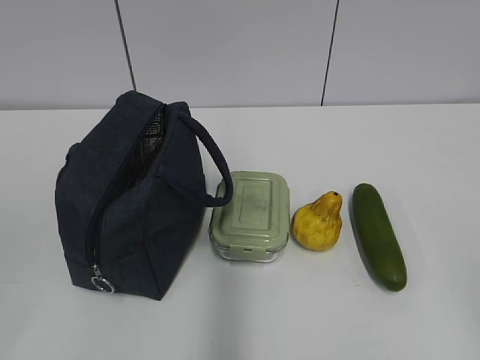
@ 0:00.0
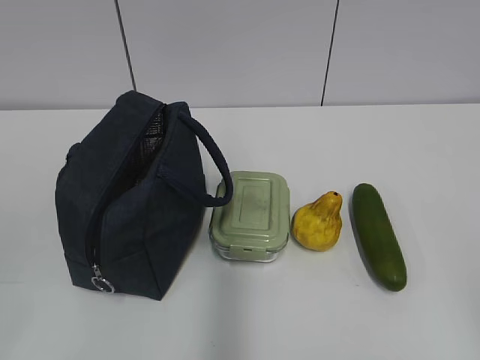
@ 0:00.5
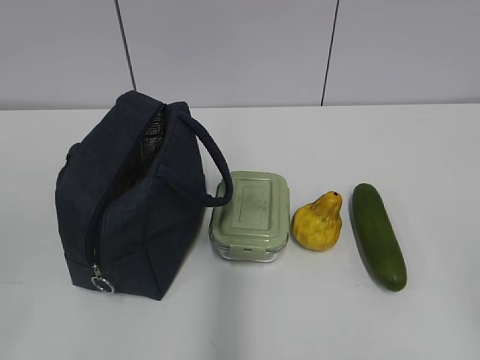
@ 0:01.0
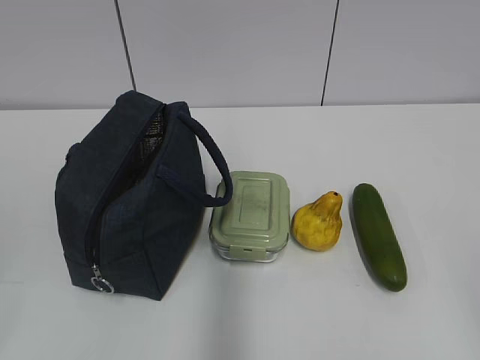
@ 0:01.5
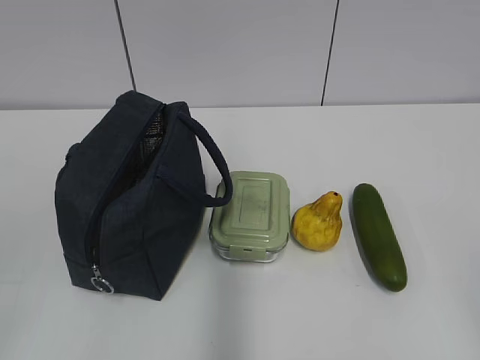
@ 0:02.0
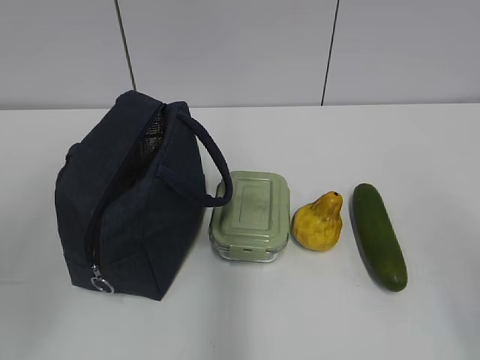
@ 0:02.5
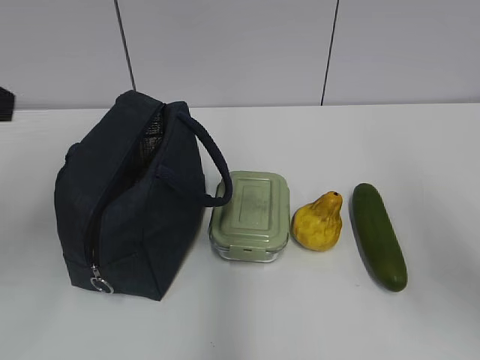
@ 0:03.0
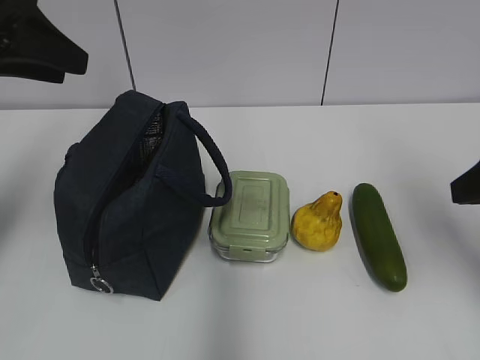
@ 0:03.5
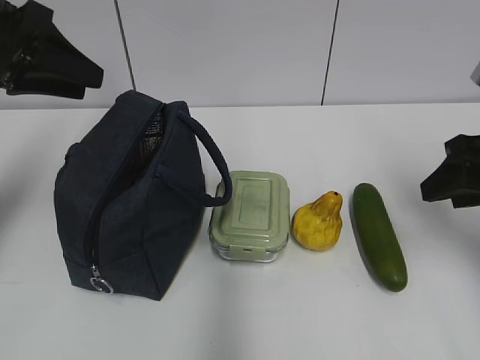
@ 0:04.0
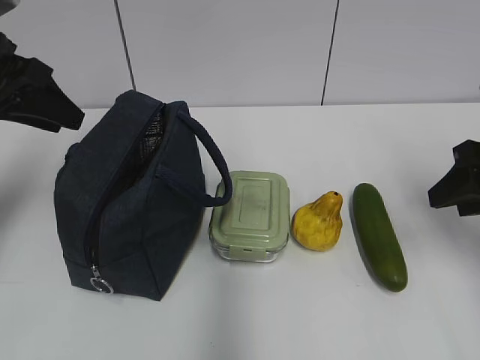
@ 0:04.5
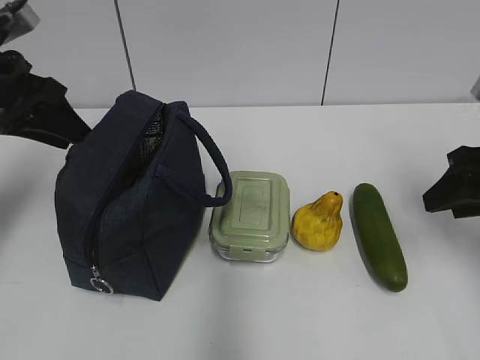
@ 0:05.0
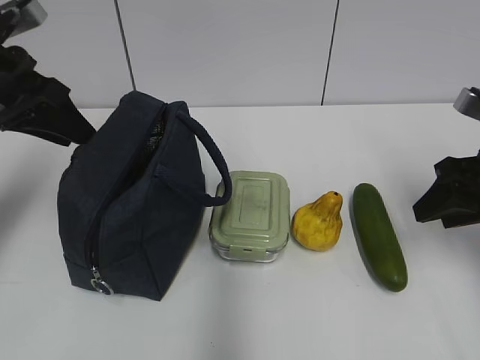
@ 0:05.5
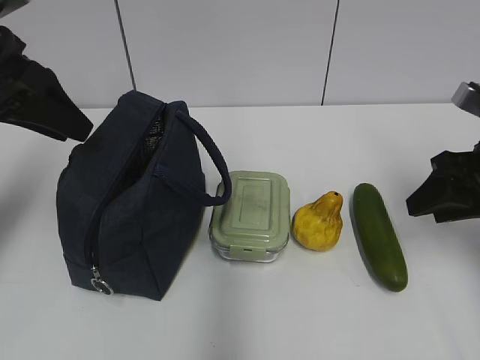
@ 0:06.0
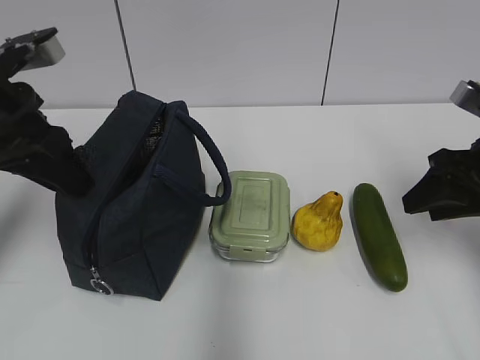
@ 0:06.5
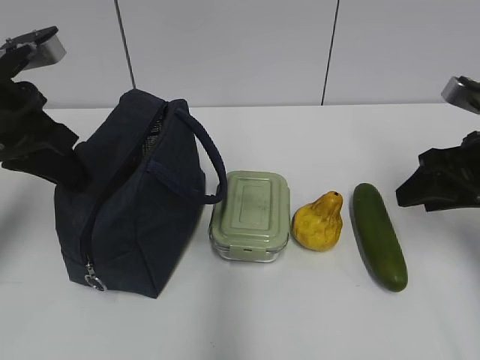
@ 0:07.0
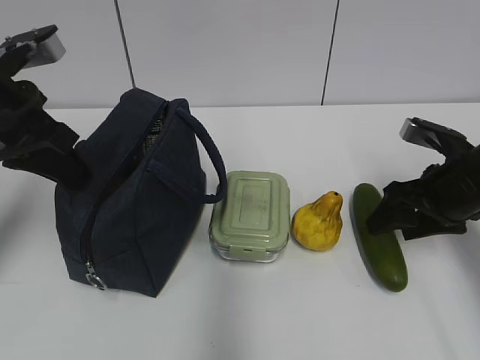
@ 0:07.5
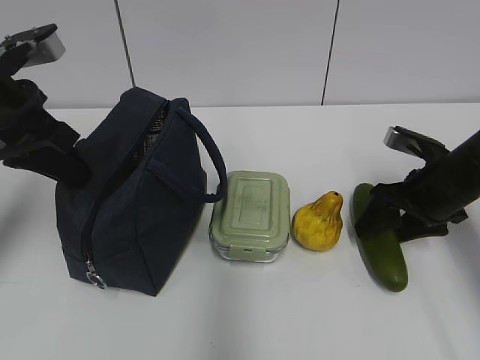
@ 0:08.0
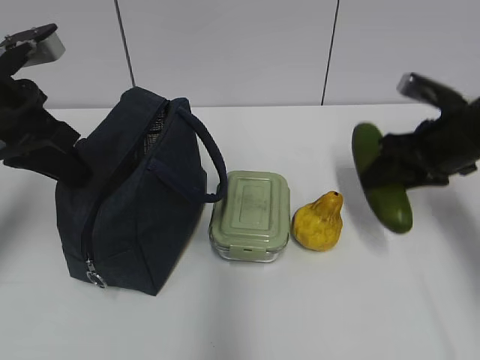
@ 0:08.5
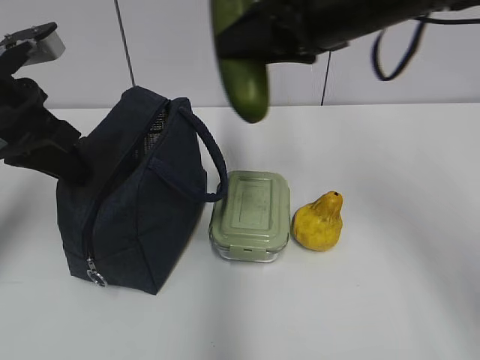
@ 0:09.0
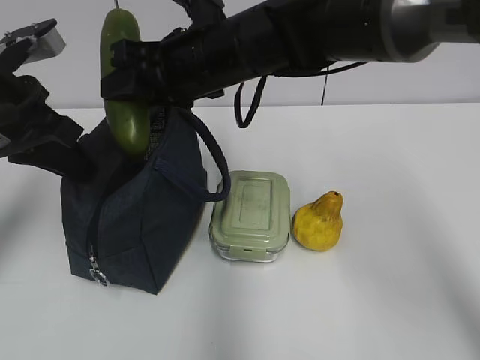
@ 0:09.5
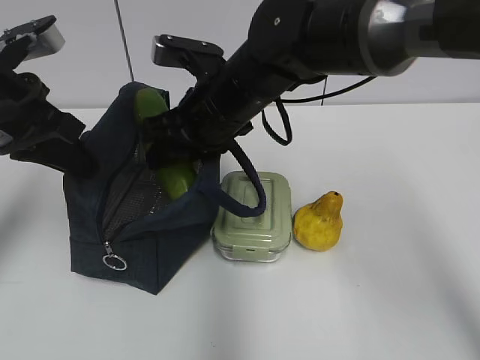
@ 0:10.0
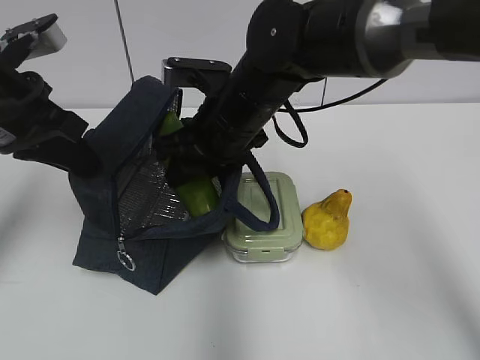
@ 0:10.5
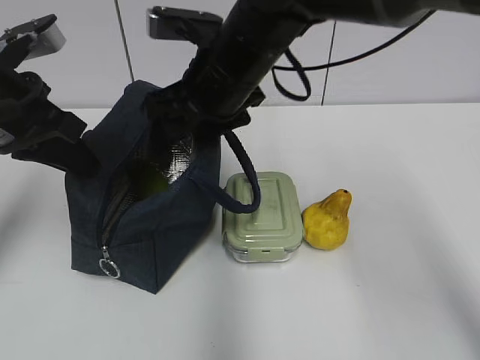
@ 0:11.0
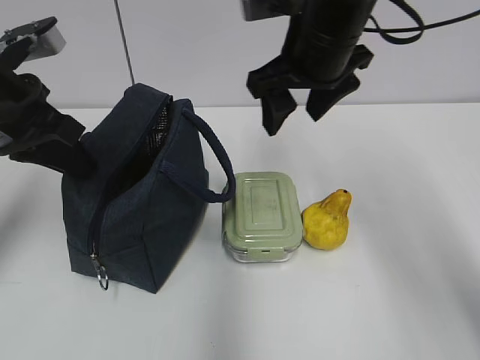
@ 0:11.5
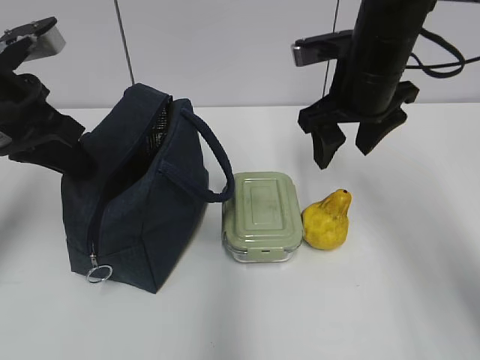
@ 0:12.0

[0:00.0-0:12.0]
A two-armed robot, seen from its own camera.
Step, 0:00.0 to 0:08.0: Grab the cucumber with your right hand.
Step, 0:10.0 to 0:10.5: Place it into the bag with your right hand.
0:02.0 to 0:04.0: The grippers both shift forward by approximately 30 cm.
0:04.0 to 0:06.0: There are only small adjustments of the grippers.
0:06.0 to 0:08.0: The right gripper heads downward and forward, covering roughly 10 cm, while the left gripper closes its fingers.
0:08.0 to 0:10.0: The right gripper is displaced to the left by some 25 cm, and closes.
0:10.0 to 0:12.0: The right gripper heads to the right, covering some 15 cm, and opens its fingers.

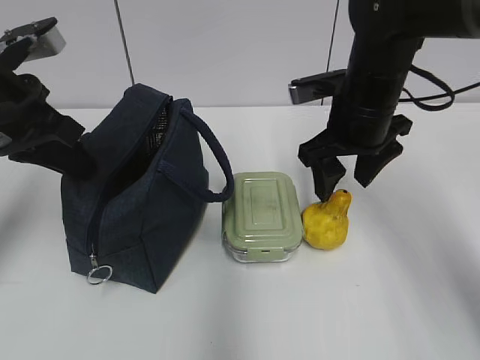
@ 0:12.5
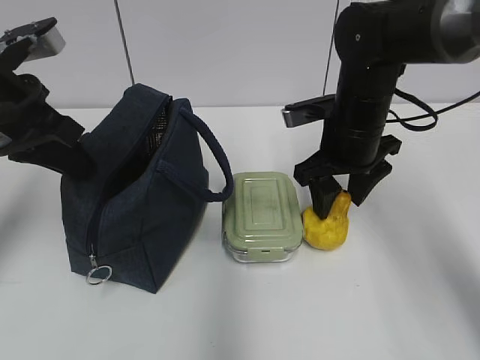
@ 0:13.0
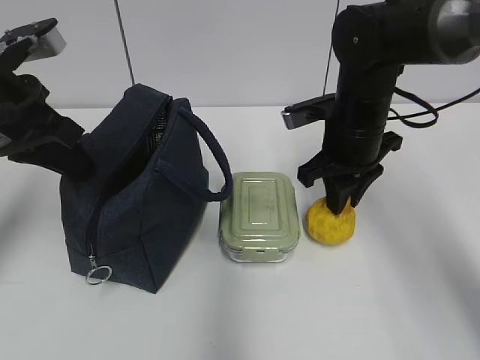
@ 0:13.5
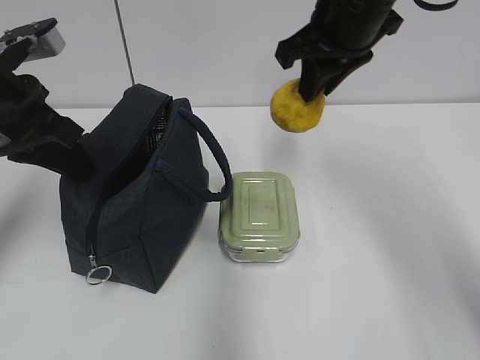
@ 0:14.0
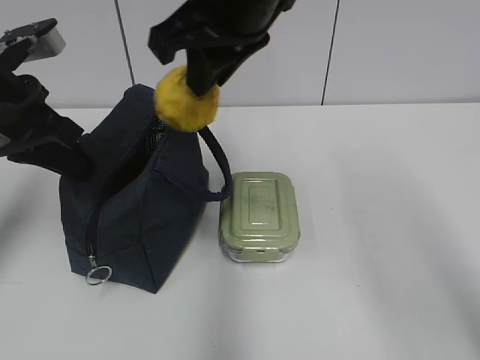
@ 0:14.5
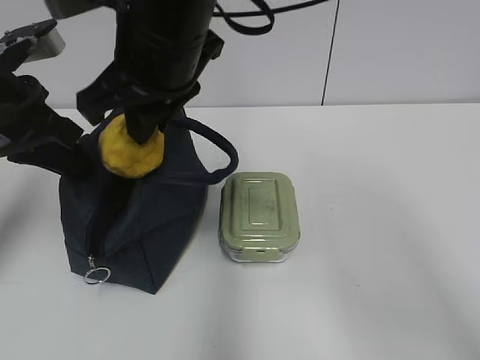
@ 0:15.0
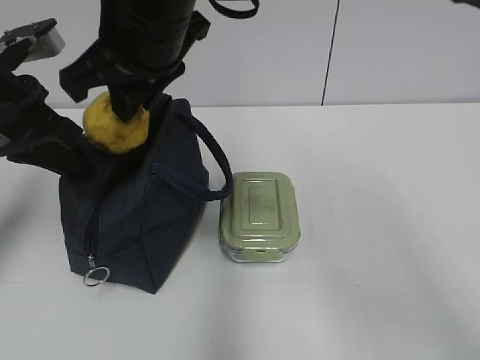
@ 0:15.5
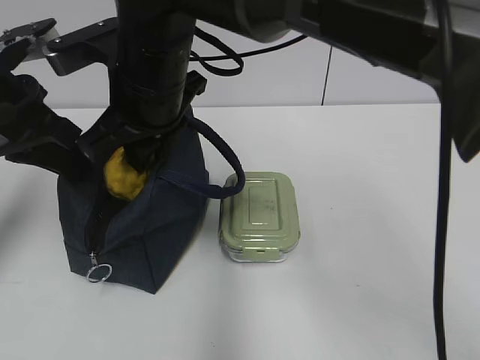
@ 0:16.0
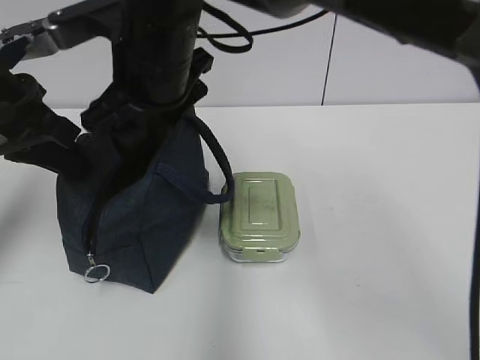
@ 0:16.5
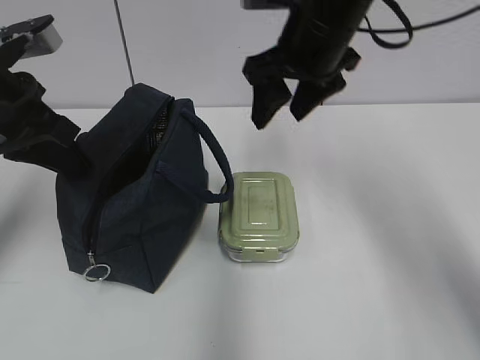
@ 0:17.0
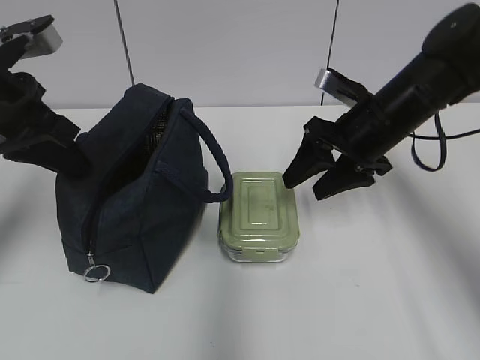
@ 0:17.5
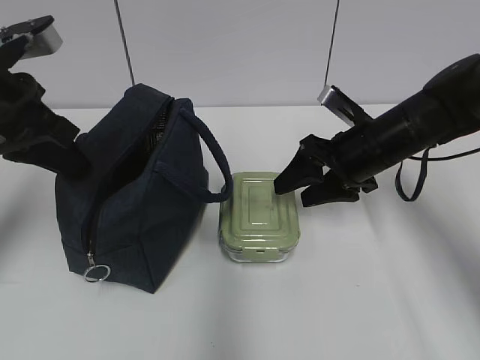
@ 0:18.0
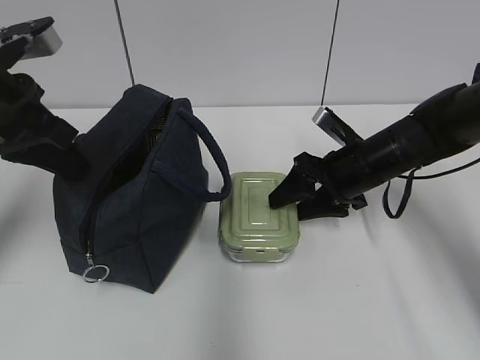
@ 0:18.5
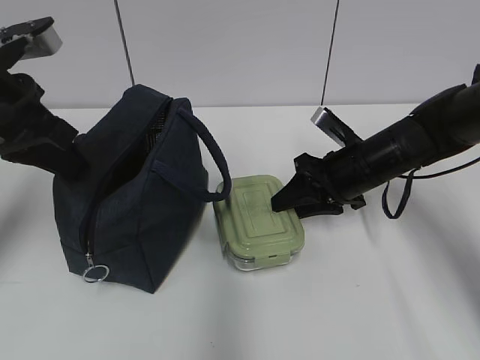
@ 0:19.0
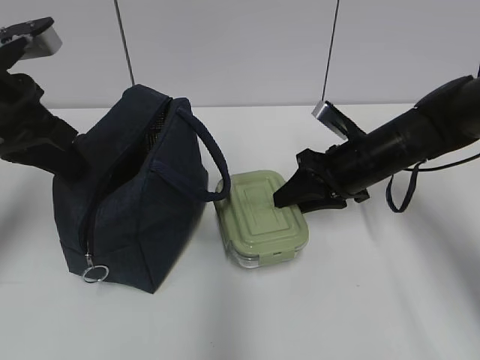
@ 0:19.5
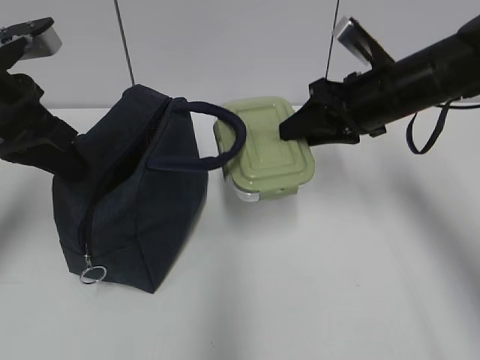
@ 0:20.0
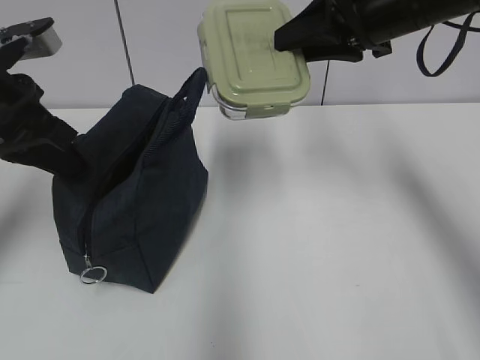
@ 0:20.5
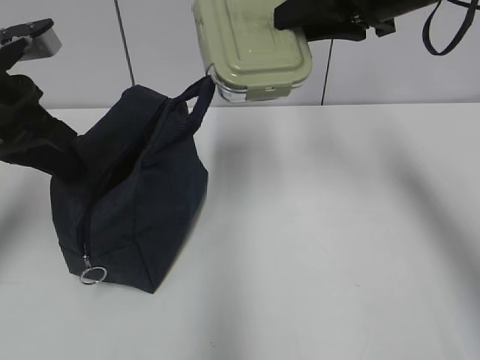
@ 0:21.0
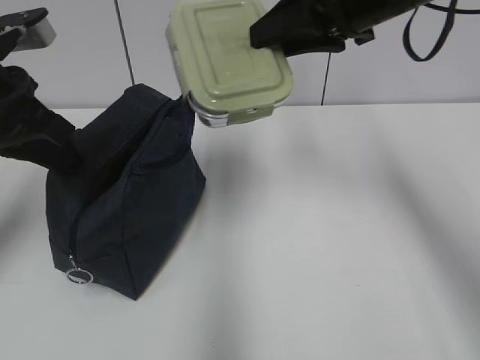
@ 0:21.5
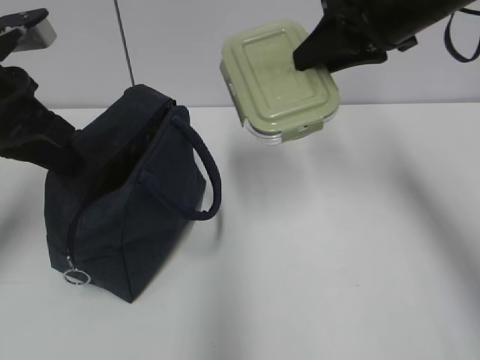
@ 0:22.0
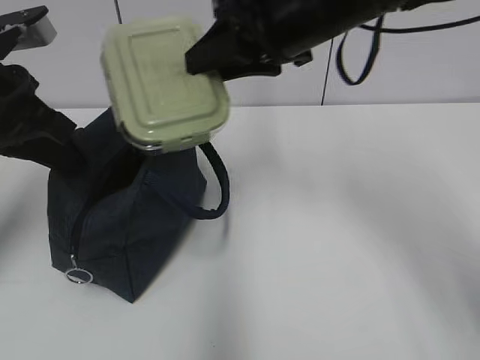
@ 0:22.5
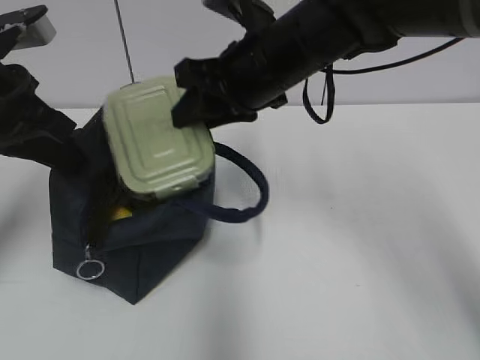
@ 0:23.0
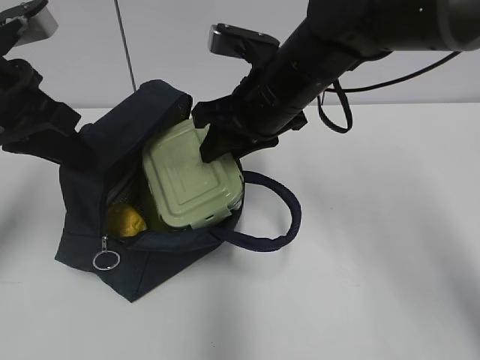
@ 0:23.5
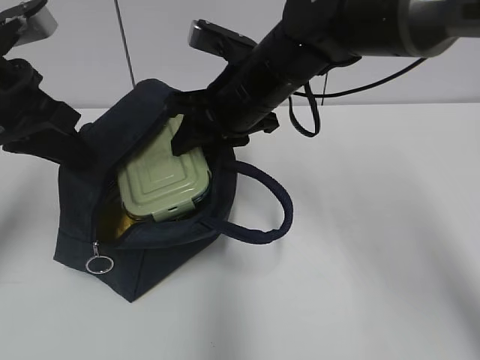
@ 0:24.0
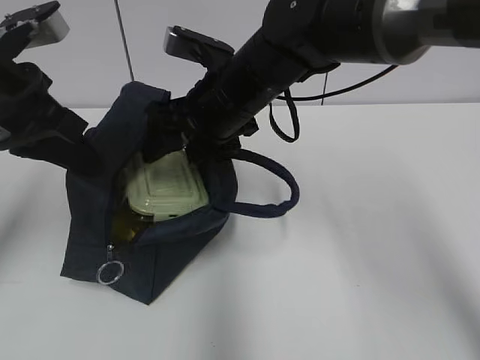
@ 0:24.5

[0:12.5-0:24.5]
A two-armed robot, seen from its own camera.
Step, 0:14.0 to 0:16.0: Place it into the bag with your right hand.
Step, 0:16.5 to 0:19.0: Grab the lunch box with your right hand.
0:12.5 to 0:14.5: The right gripper travels upward and to the left by some 20 cm, and closes up.
0:14.5 to 0:16.5: The right gripper travels to the left and downward by approximately 10 cm, and opens.
0:16.5 to 0:18.5: The right gripper shifts approximately 30 cm to the right and downward.
0:18.5 to 0:20.5: The right gripper moves upward, about 20 cm, and closes.
0:20.5 to 0:22.5: The right gripper goes about 10 cm to the left.
0:22.5 to 0:24.5: The right gripper is displaced downward and to the left by approximately 10 cm, and opens up.

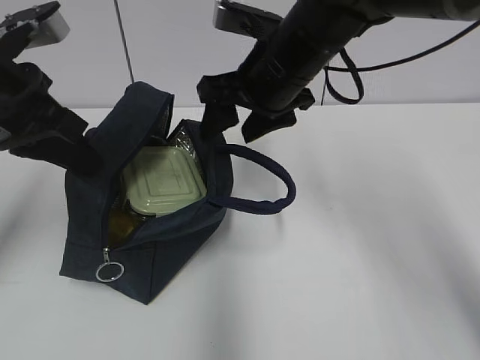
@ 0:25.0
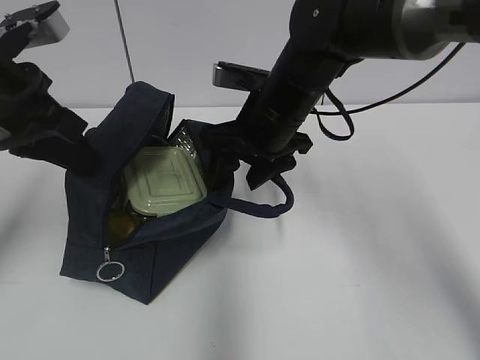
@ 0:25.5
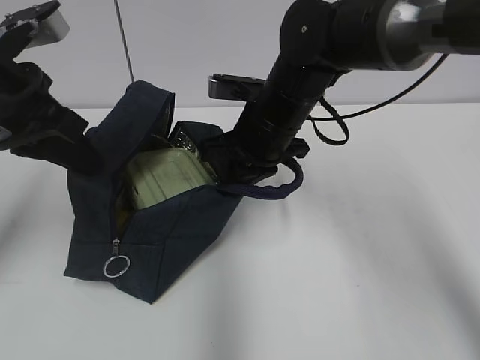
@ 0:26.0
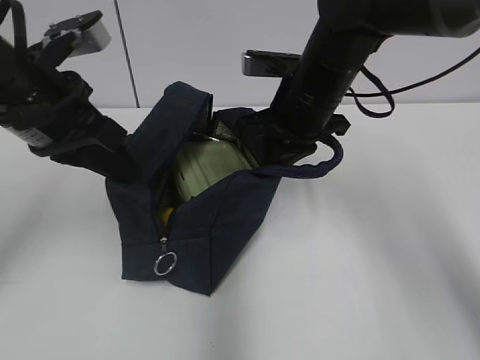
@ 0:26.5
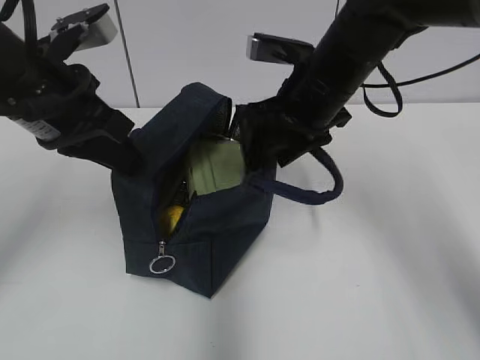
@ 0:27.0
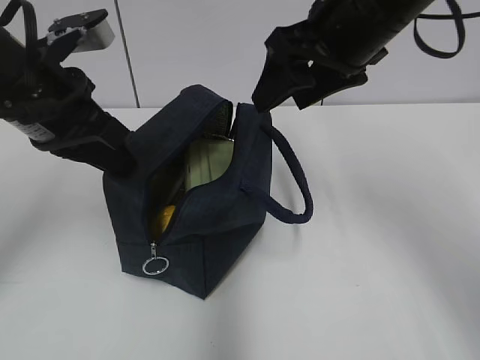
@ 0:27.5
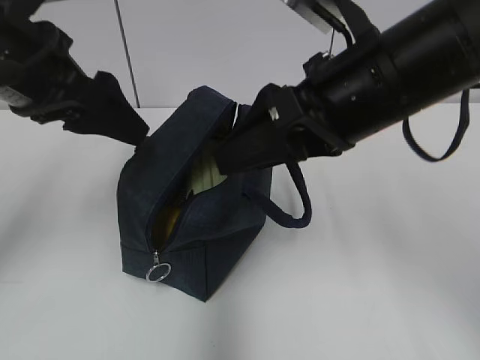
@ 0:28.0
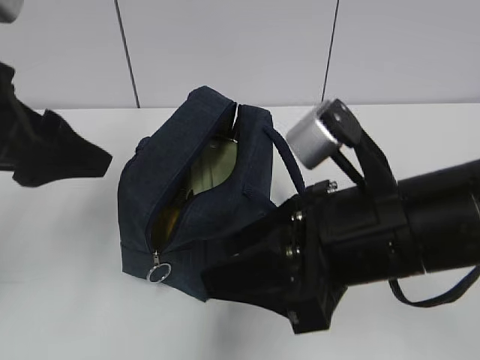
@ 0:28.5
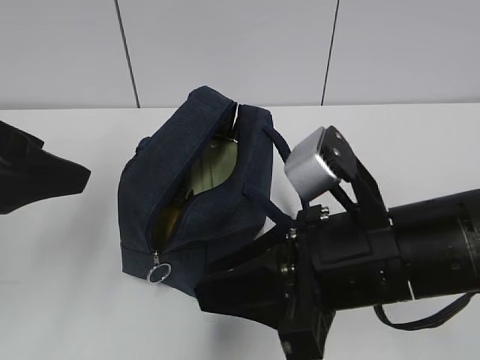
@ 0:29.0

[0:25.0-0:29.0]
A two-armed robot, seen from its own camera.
Step, 0:26.5 to 0:27.5: Move the lunch bag to the right.
0:25.0 to 0:27.0: The right gripper closes, then opens again.
0:27.0 to 0:29.0: The left gripper is displaced backward by about 10 cm, and opens up; the right gripper travels backward by roughly 20 cm, and closes up.
